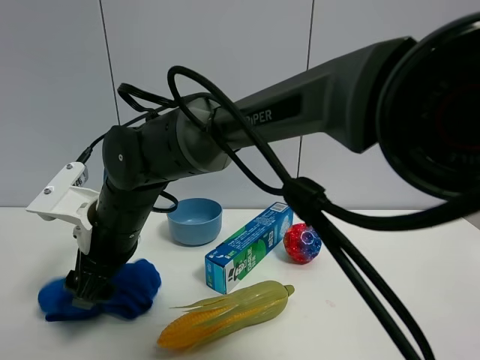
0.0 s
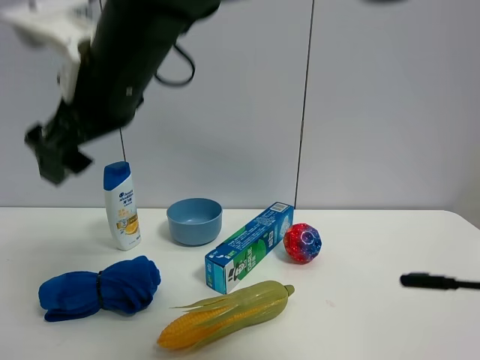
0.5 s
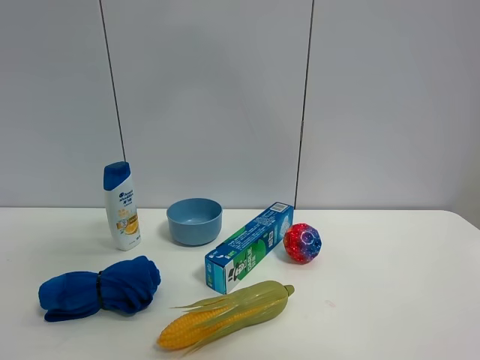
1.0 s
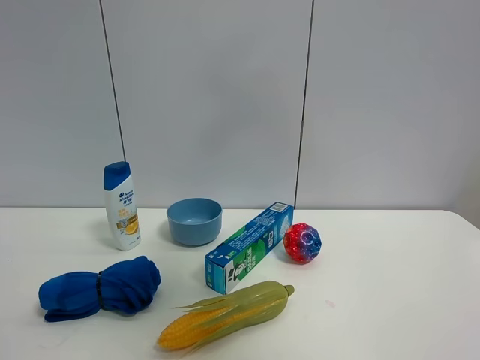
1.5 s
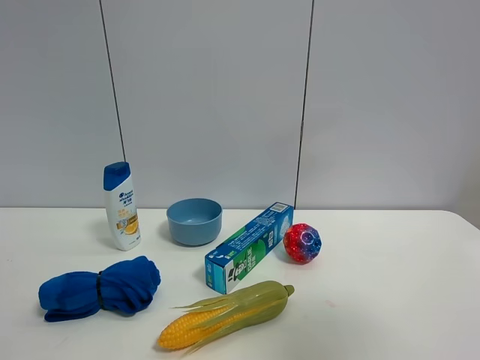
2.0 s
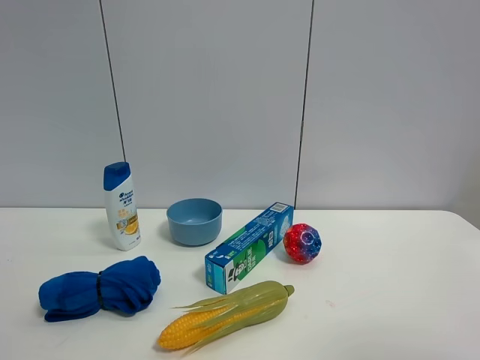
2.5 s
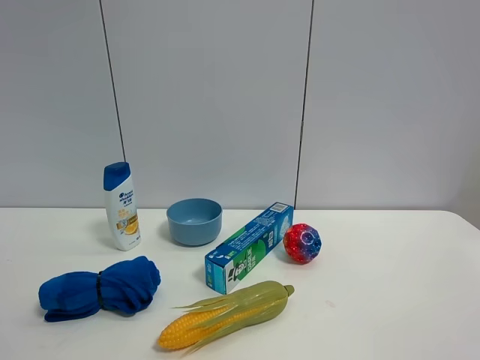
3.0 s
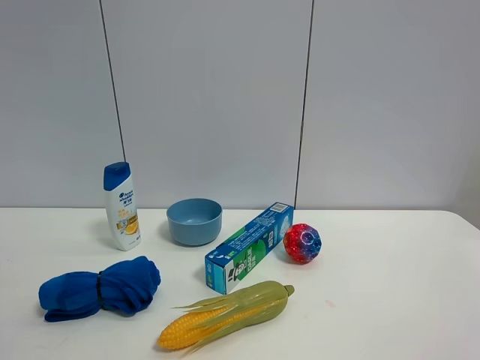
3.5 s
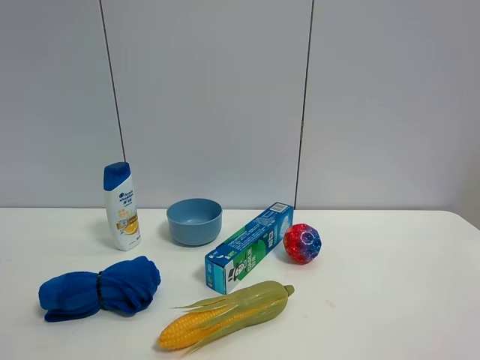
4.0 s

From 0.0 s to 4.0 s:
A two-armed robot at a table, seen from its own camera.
Task of the whole recording: the gripper move the object.
From 0.0 s to 2.0 s: The right gripper is displaced to the right, upward and backward by roughly 50 cm, and opens.
From 2.0 s to 4.0 s: The right gripper is displaced backward, downward and to the right by roughly 15 cm.

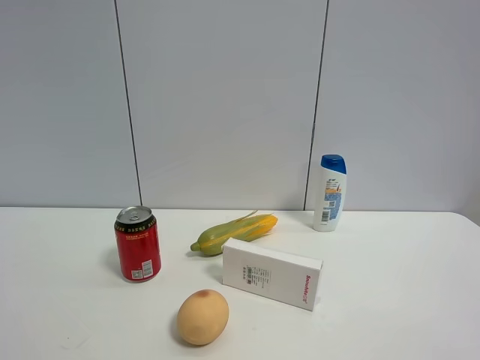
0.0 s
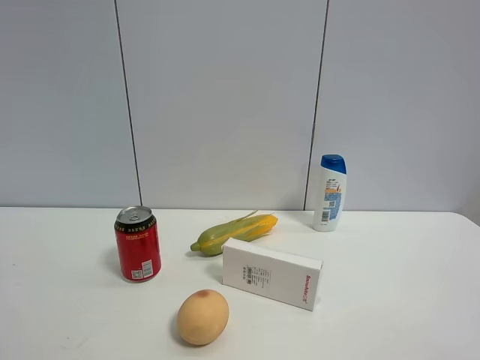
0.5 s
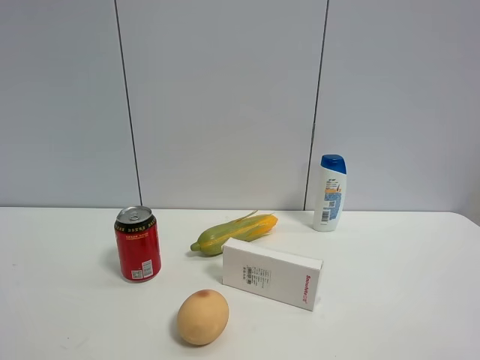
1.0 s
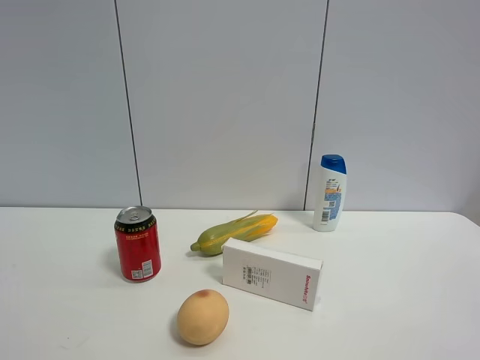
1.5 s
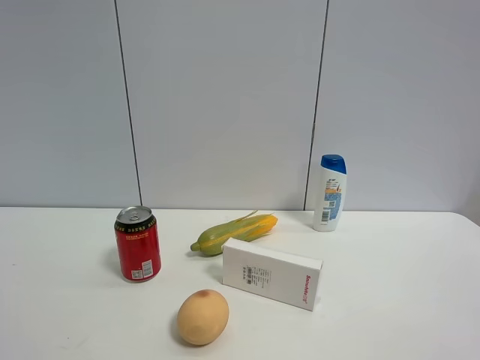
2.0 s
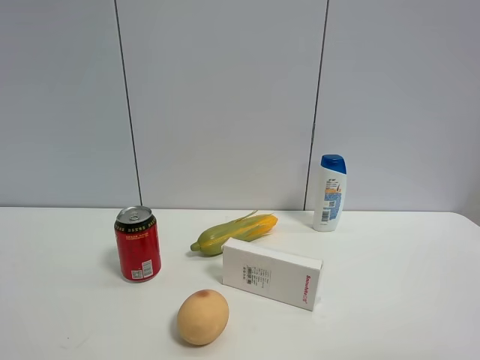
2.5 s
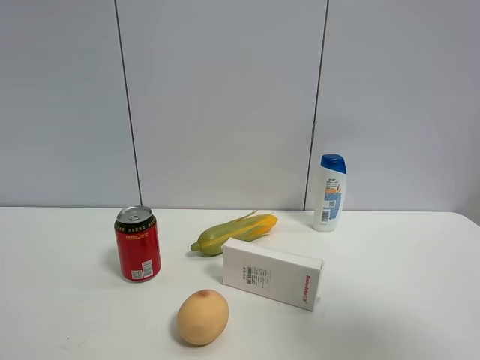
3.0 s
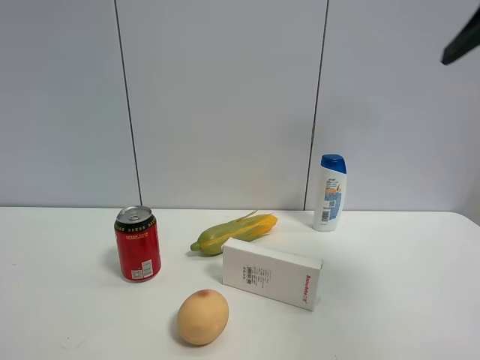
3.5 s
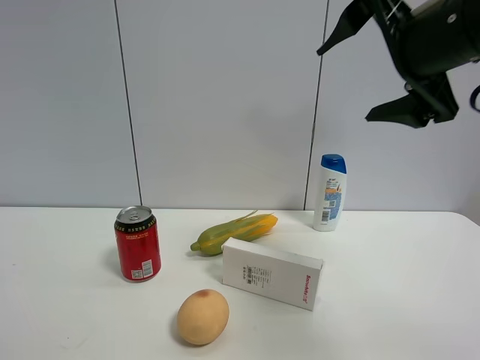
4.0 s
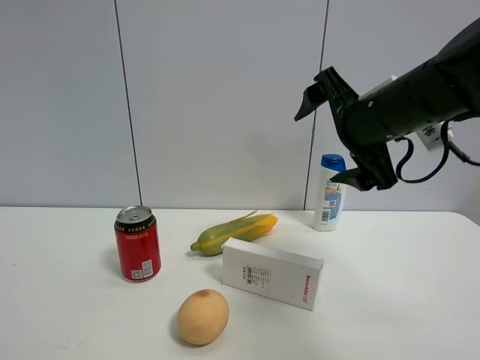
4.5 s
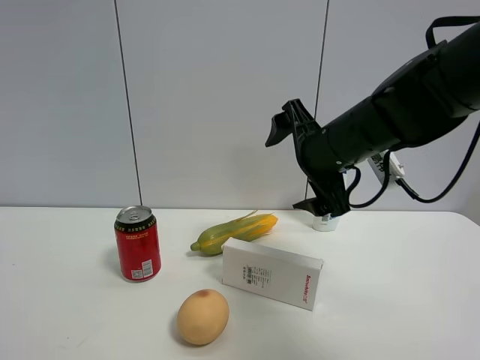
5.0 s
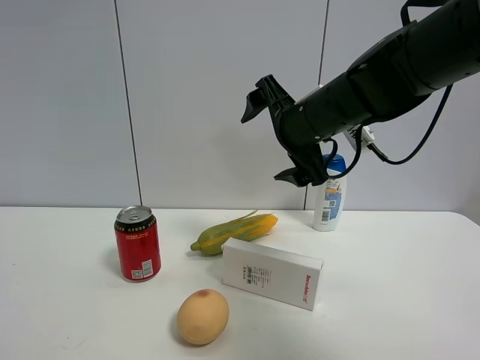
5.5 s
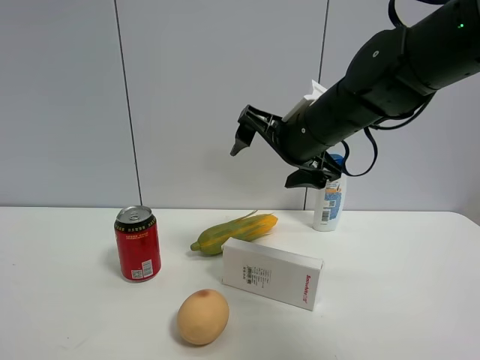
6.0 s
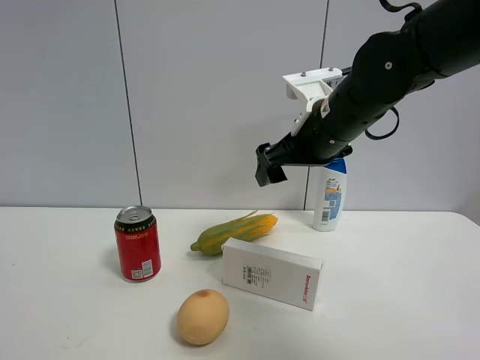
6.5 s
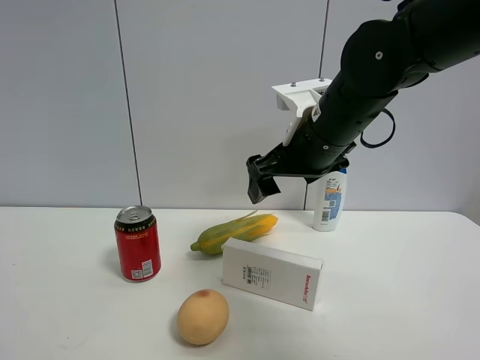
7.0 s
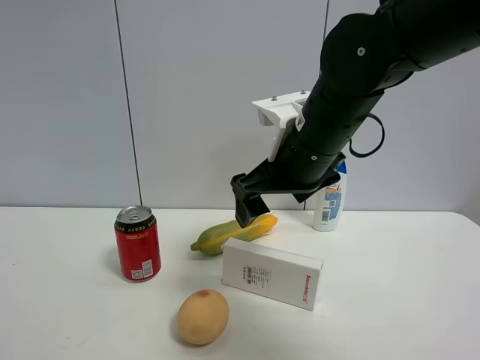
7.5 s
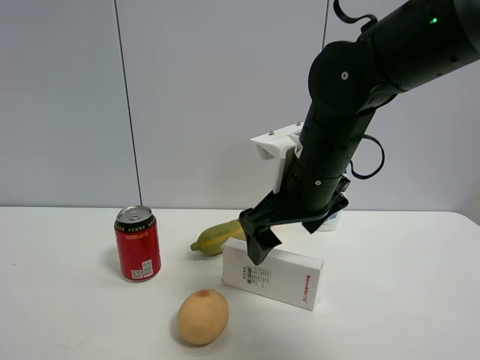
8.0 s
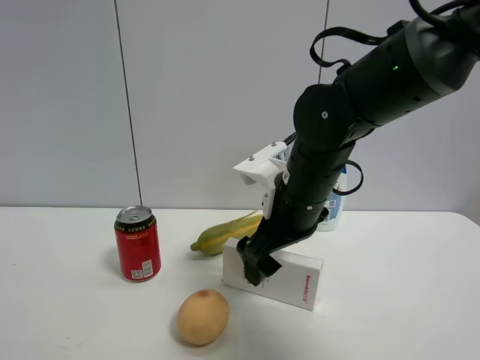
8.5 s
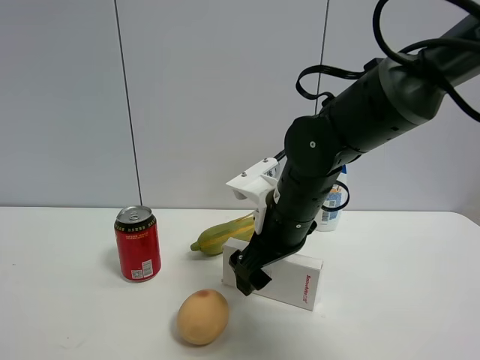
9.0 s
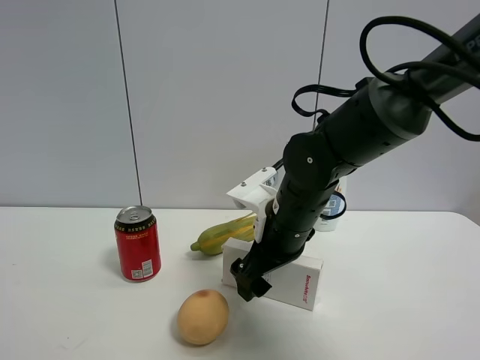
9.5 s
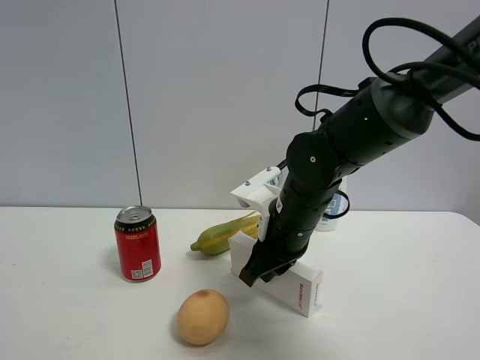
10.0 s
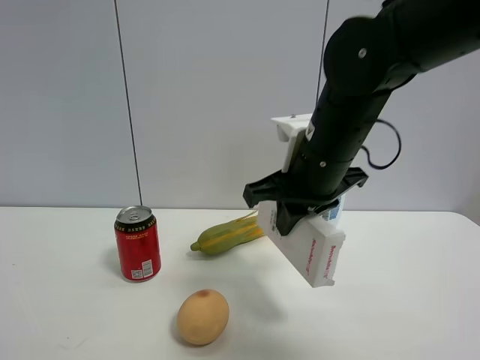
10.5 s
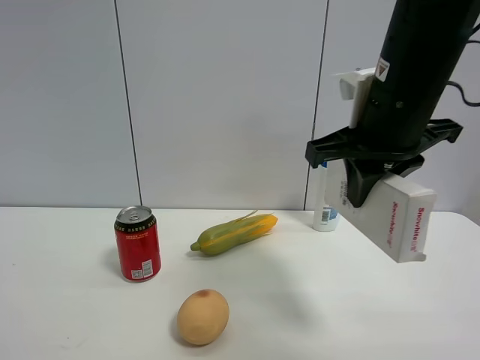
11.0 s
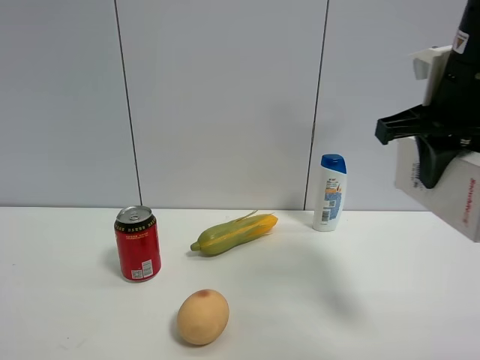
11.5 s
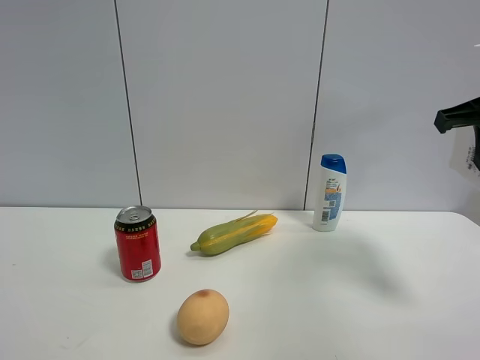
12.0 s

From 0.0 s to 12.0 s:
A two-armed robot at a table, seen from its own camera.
Task of the whole recording: the gripper move the object.
Step, from 0.0 s to 10.0 s: Grasp the USB box with the right gripper.
From 0.0 s to 2.0 s: Neither gripper changes place.
From 2.0 s to 4.0 s: The right gripper heads forward, covering roughly 30 cm.
From 4.0 s to 6.0 s: The right gripper shifts some 15 cm downward, to the left and forward.
From 6.0 s to 8.0 s: The right gripper goes about 5 cm backward.
From 8.0 s to 10.0 s: The right gripper travels downward by approximately 5 cm, and closes its fingers.
From 10.0 s to 12.0 s: The right gripper shifts approximately 30 cm to the right and upward.

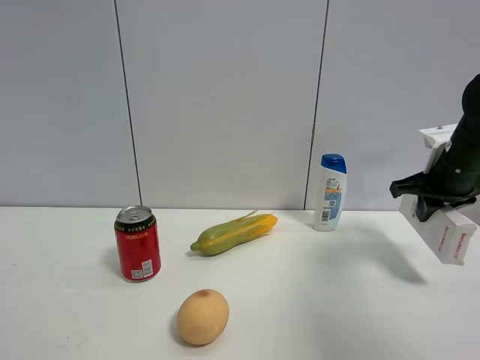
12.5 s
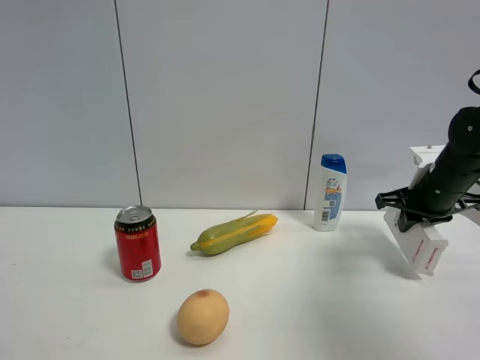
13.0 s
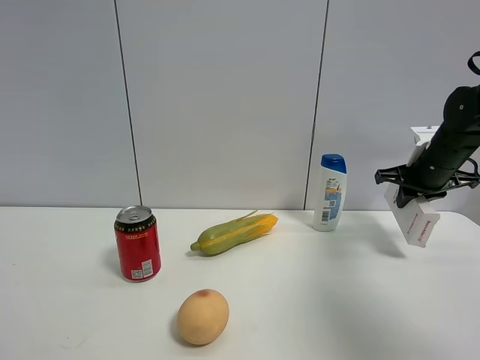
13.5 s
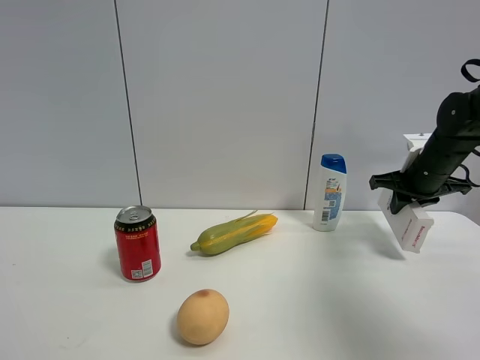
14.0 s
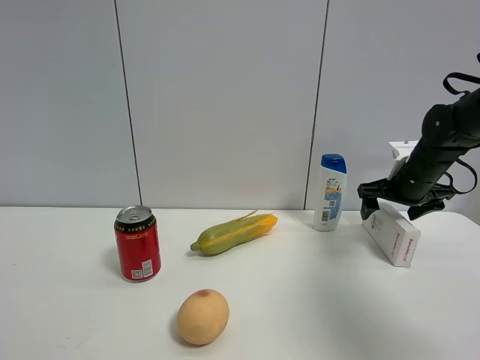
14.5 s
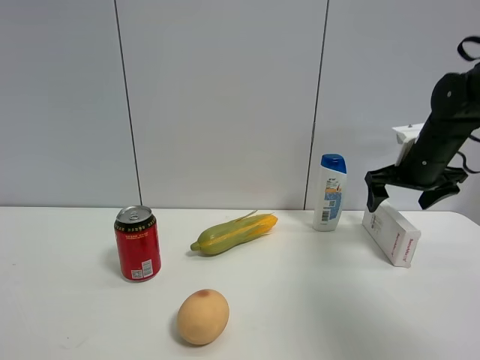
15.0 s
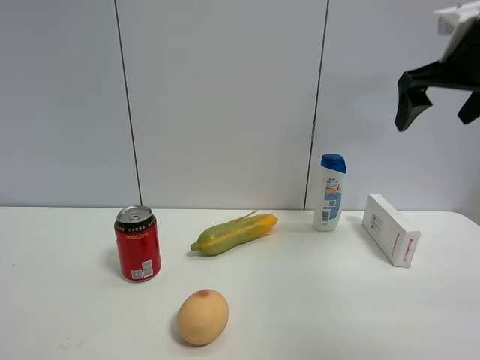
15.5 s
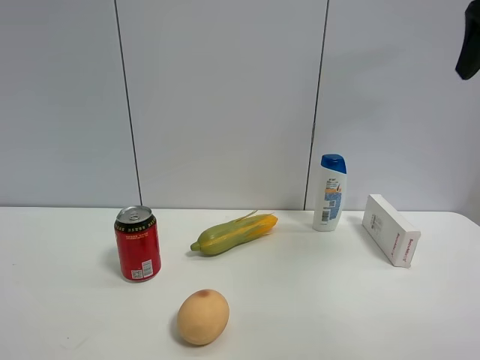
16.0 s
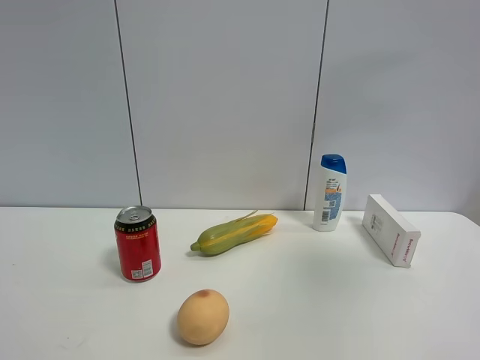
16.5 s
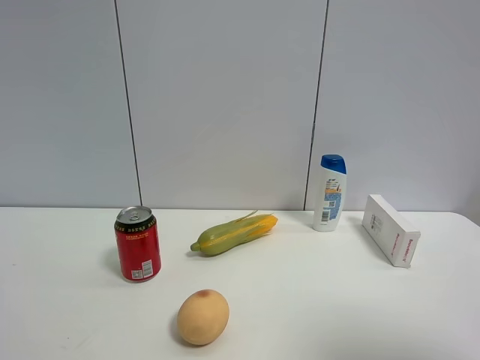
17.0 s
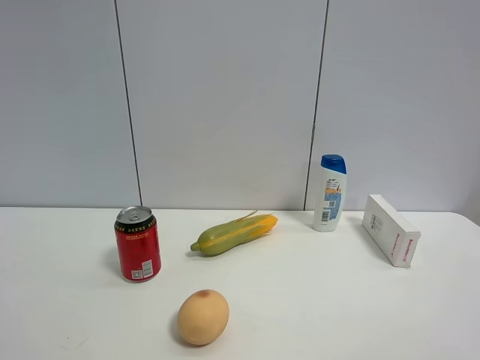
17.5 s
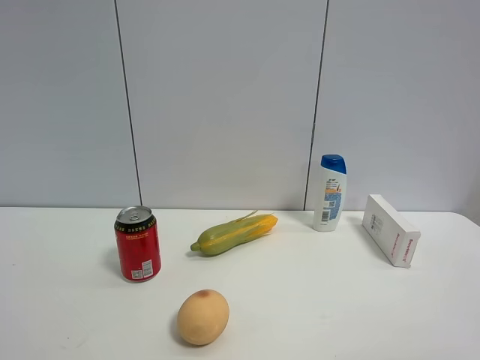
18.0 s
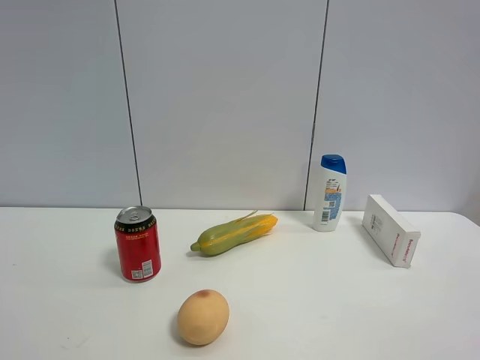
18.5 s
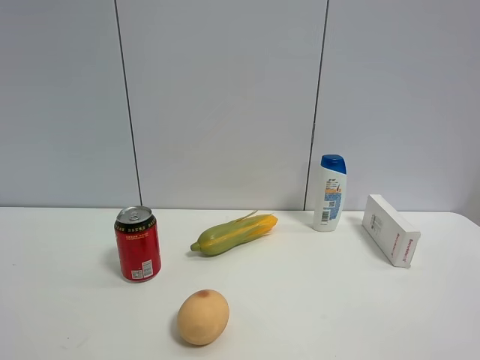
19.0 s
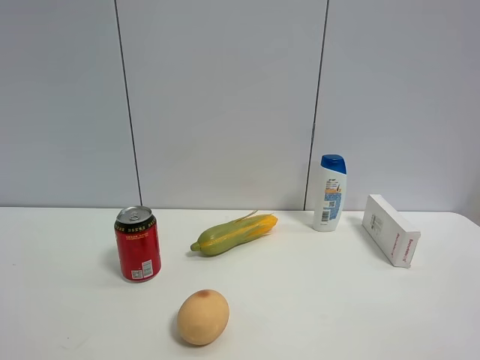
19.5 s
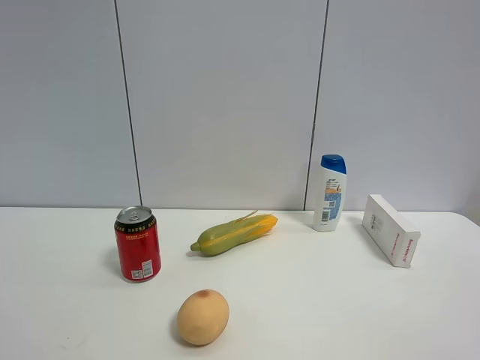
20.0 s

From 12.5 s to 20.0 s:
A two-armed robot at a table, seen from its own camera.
Task of the whole recording: the gripper move the object.
From 12.5 s to 14.5 s: The right gripper goes roughly 5 cm forward, and opens up.
From 14.5 s to 16.5 s: The right gripper shifts approximately 40 cm upward and backward.
From 16.5 s to 18.0 s: The right gripper is displaced backward and downward by roughly 25 cm.

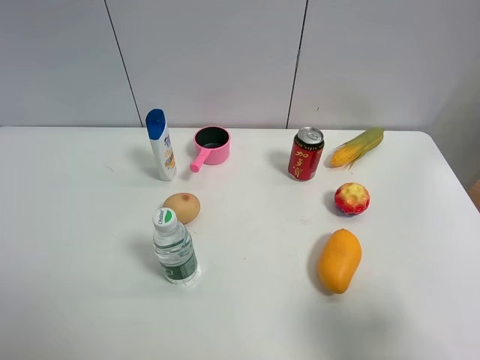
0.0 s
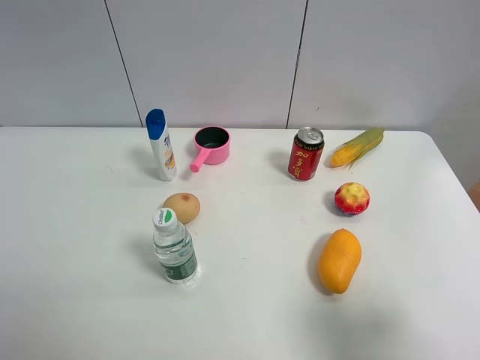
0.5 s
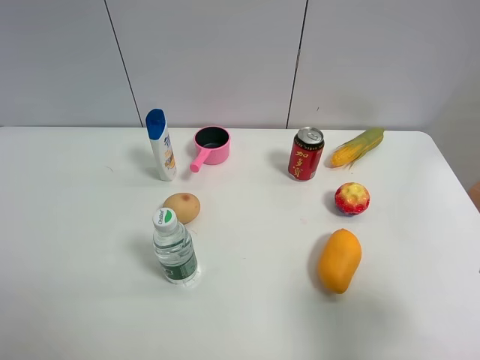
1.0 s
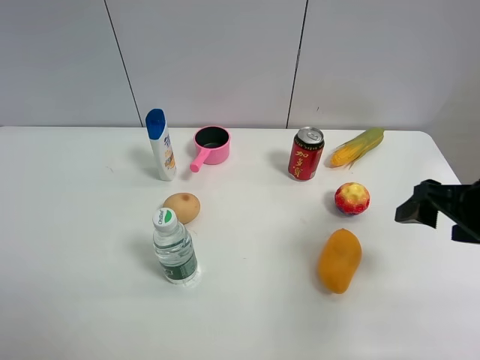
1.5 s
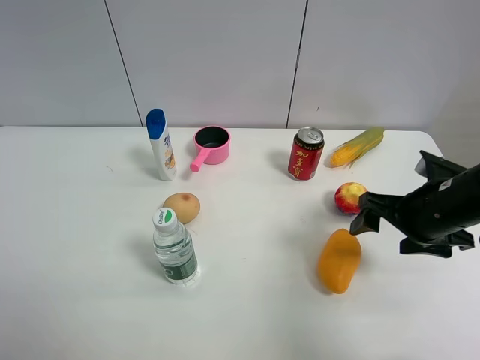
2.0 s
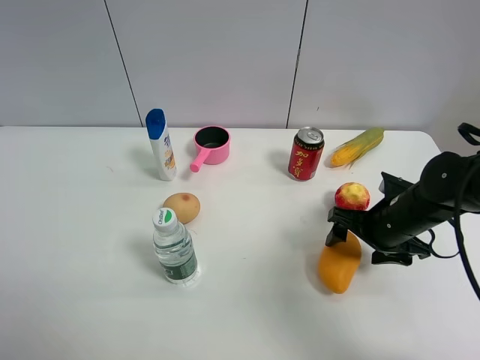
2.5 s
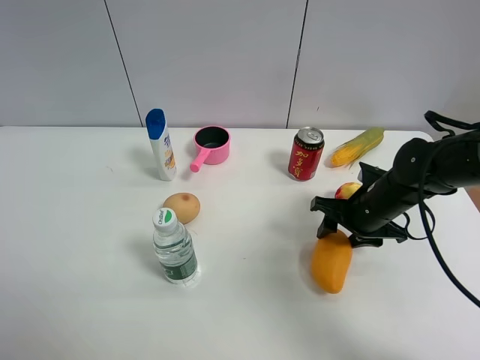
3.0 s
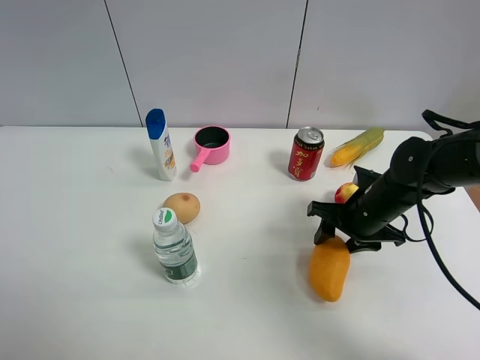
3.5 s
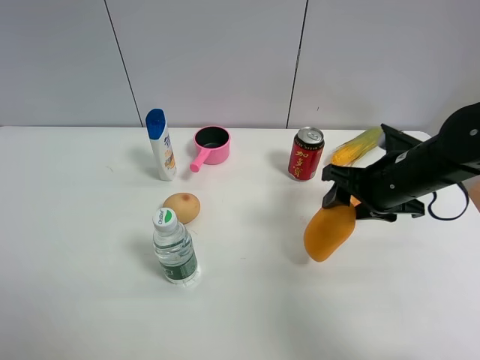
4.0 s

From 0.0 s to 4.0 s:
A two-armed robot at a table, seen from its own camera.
Task of the whole recording: the gripper move the object.
Step, from 0.0 s to 3.0 s: Grasp the mango with the right gripper.
From 0.0 s to 2.0 s: The right gripper moves forward and downward, about 25 cm.
From 2.0 s to 4.0 s: The right gripper goes downward and returns, roughly 5 cm each way, and closes its fingers.
